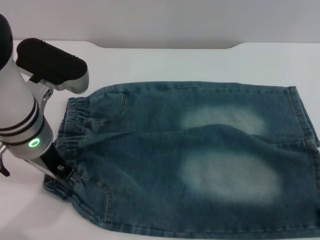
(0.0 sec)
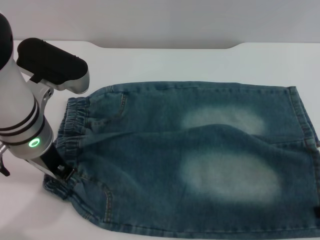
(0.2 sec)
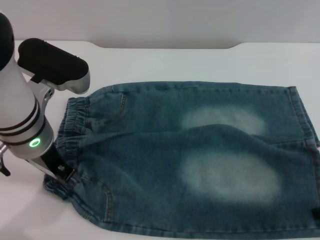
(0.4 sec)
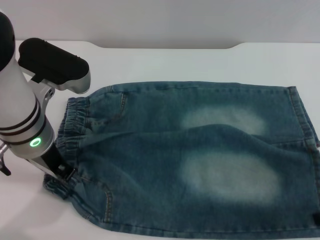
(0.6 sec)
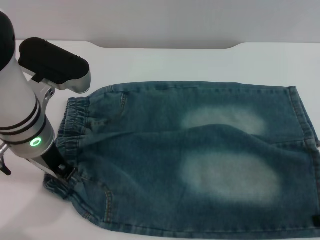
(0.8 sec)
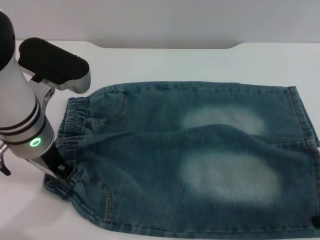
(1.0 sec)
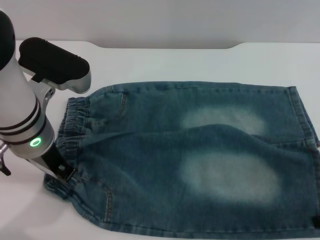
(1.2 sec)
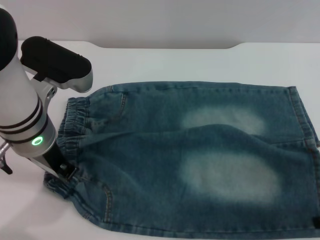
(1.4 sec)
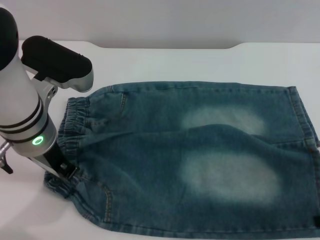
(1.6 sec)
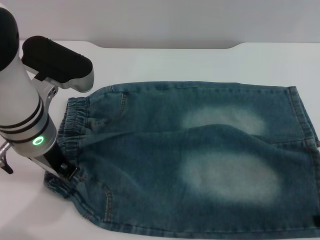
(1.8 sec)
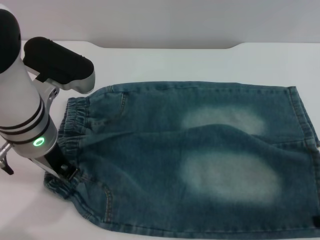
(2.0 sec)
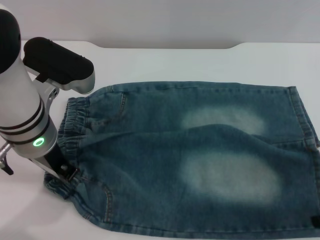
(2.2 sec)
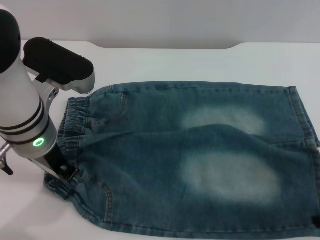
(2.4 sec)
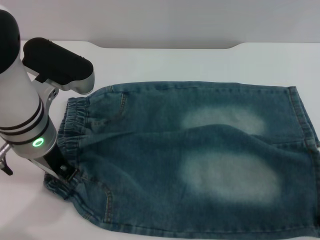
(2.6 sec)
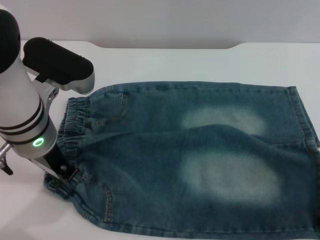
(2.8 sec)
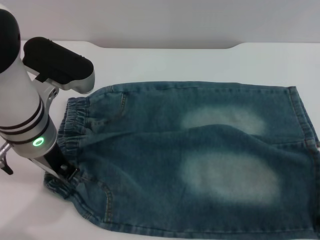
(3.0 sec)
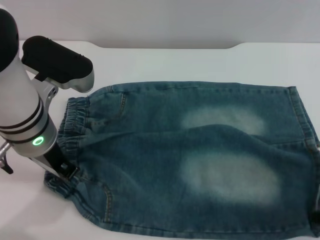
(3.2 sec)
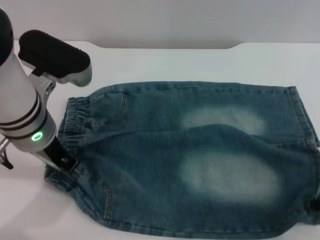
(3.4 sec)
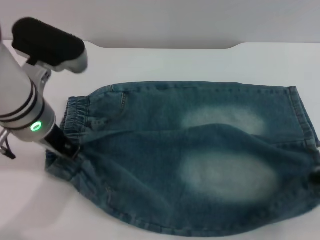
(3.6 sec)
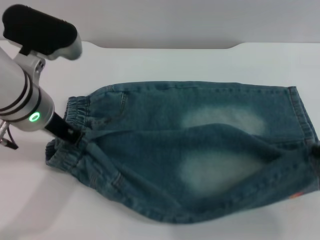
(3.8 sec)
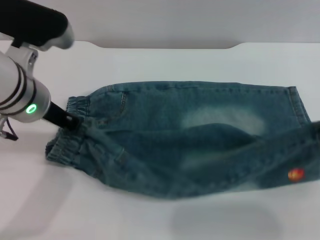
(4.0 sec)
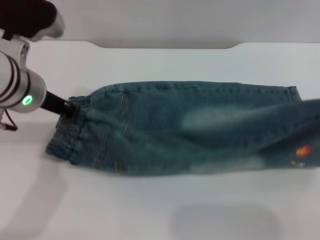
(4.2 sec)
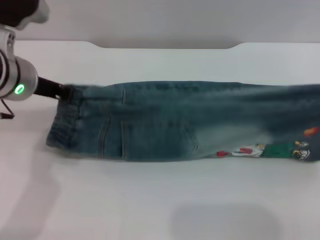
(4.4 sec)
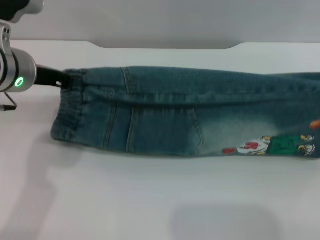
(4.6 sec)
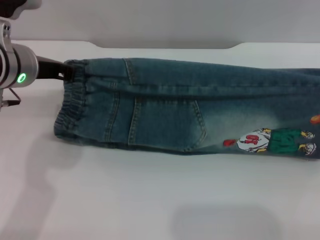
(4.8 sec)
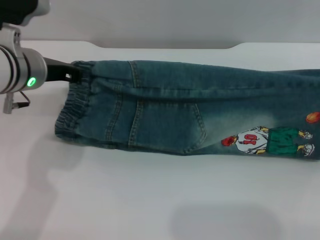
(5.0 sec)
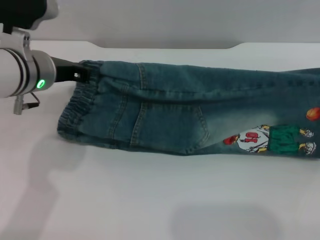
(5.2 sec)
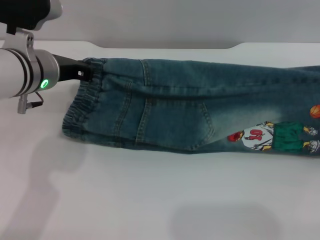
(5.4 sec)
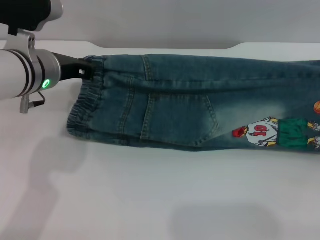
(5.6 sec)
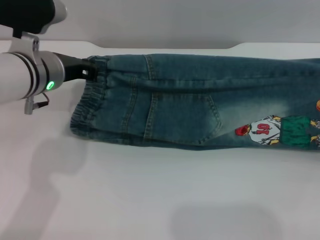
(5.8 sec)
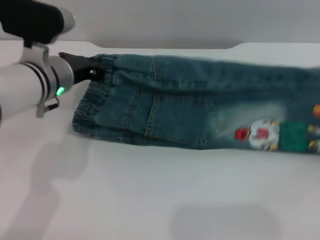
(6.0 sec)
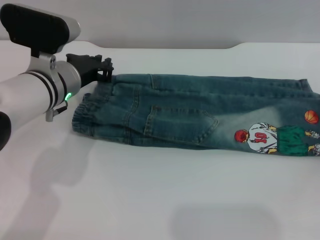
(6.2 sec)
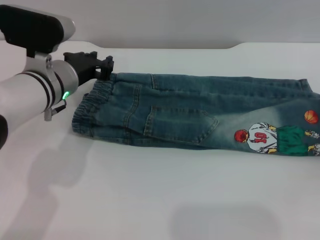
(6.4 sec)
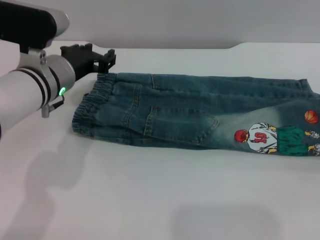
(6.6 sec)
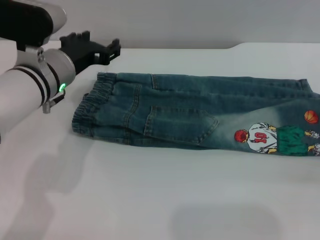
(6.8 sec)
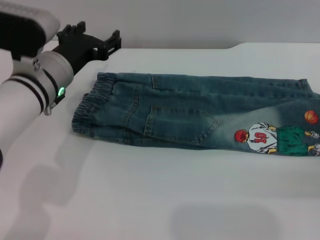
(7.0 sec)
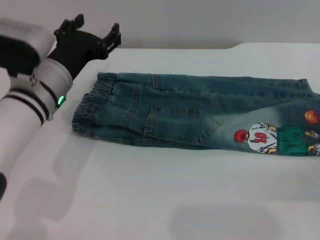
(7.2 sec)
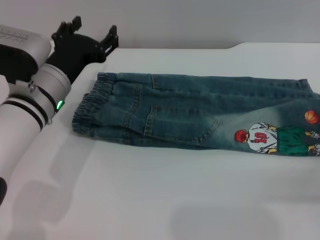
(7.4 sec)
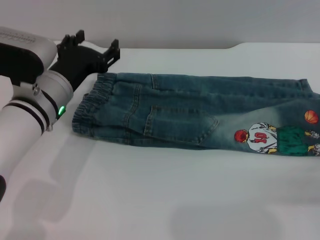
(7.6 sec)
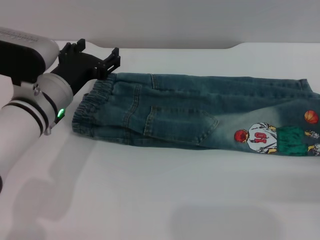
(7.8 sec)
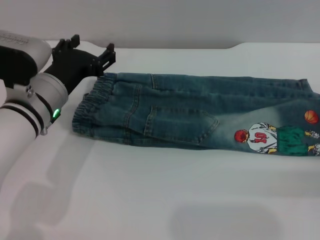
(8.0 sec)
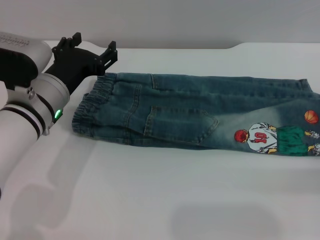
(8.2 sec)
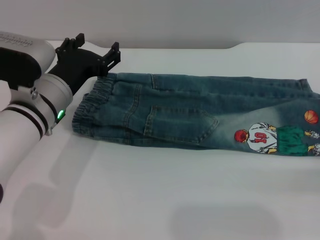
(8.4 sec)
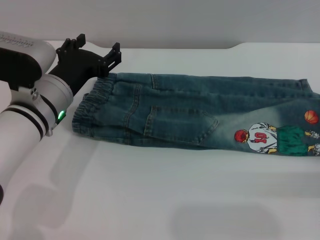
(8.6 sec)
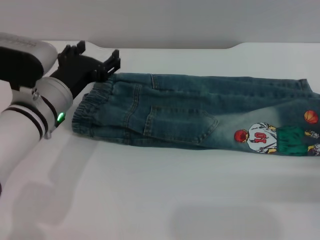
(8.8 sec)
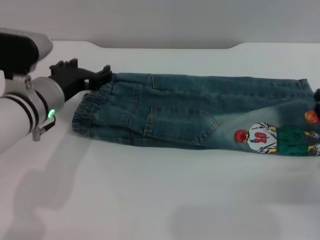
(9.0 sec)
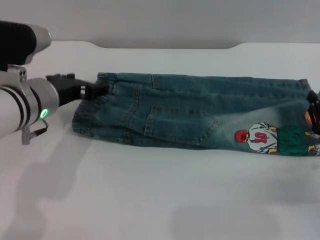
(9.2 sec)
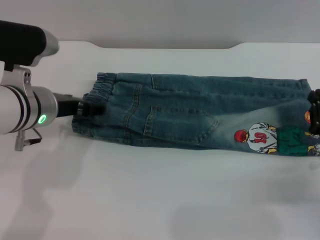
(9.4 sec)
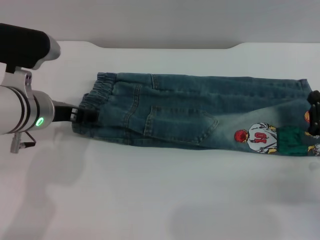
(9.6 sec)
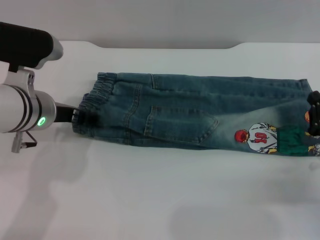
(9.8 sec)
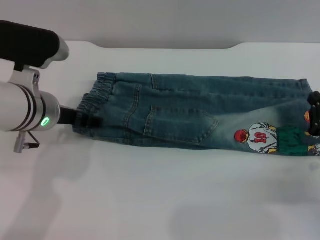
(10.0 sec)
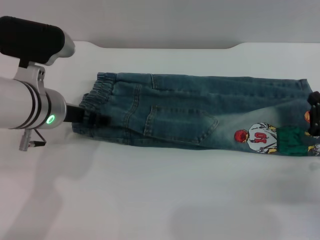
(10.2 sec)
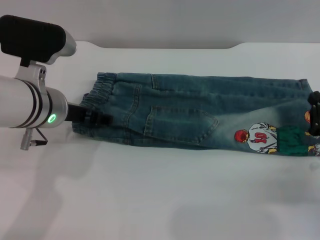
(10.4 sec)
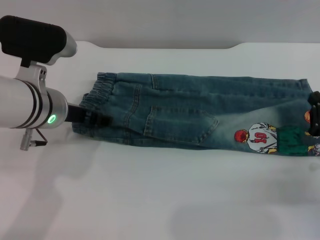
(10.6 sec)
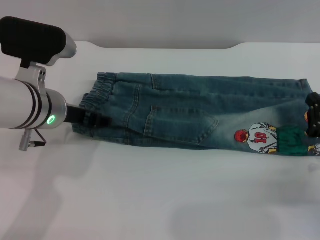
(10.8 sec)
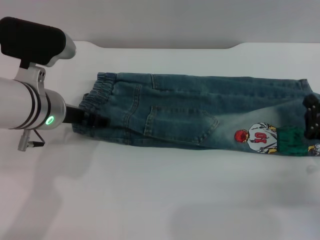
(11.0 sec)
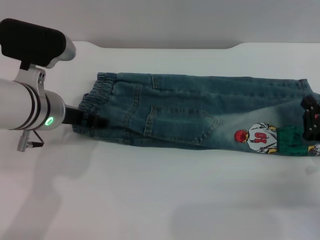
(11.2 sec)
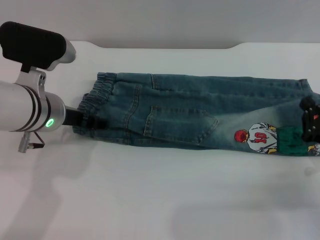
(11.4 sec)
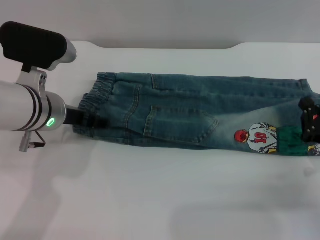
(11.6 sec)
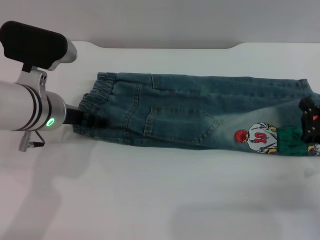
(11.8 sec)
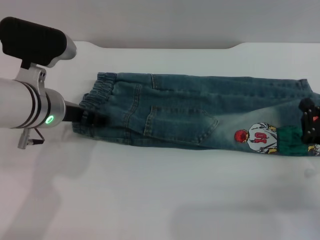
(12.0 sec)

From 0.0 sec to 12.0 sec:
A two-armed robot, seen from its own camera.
Step, from 0.0 sec to 6.6 sec: Fold the bottom of the pants upward with both grippers.
From 3.0 sec to 4.4 sec: The left gripper ends up some 5 cm from where it was. The right gripper moves upward, approximately 5 cm.
From 4.4 sec to 6.0 sec: Both grippers travel together downward, roughly 5 cm.
From 6.0 sec to 7.6 sec: The right gripper is displaced downward by roughly 5 cm, and opens up. The left gripper opens up.
From 7.6 sec to 9.0 sec: The right gripper shifts by approximately 5 cm.
From 10.4 sec to 12.0 sec: The grippers make only small movements.

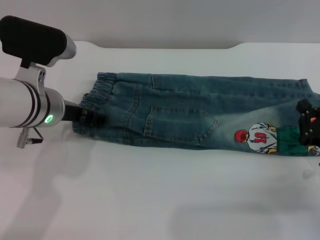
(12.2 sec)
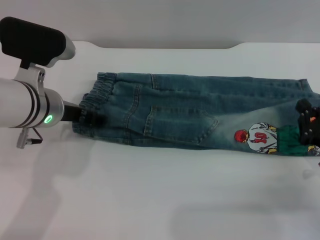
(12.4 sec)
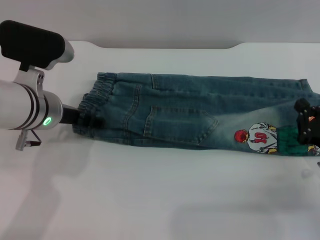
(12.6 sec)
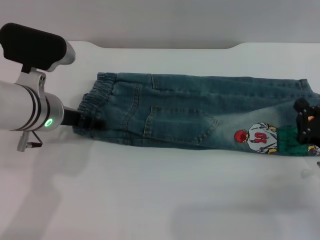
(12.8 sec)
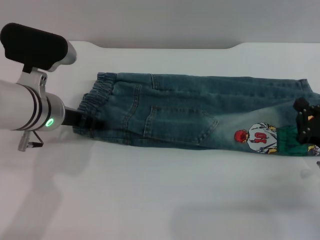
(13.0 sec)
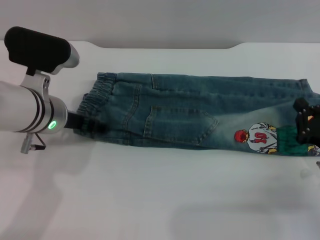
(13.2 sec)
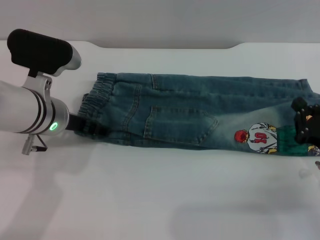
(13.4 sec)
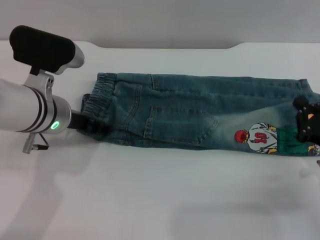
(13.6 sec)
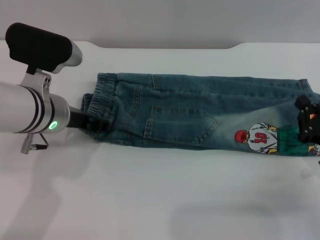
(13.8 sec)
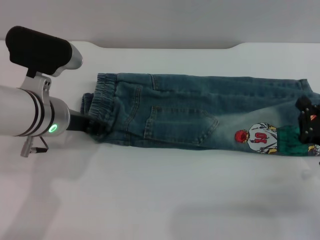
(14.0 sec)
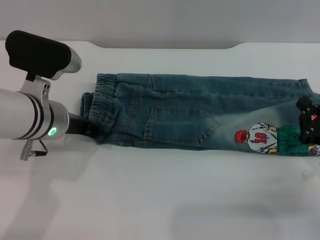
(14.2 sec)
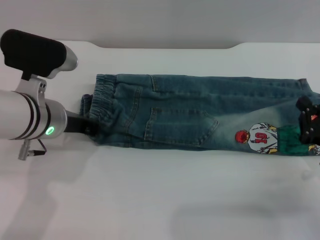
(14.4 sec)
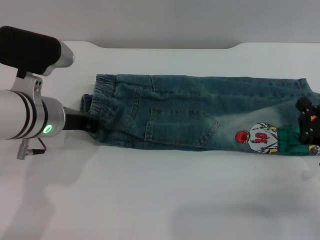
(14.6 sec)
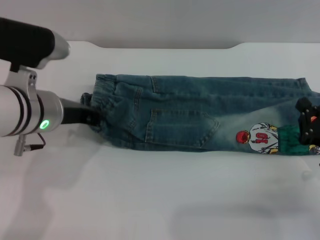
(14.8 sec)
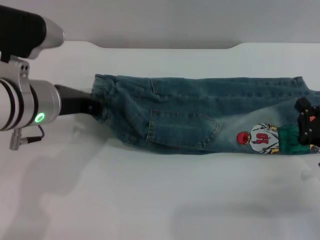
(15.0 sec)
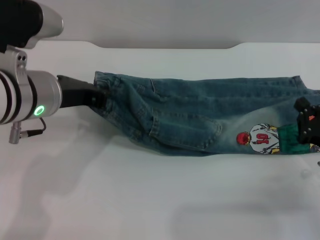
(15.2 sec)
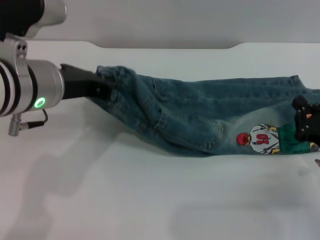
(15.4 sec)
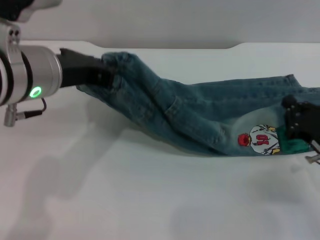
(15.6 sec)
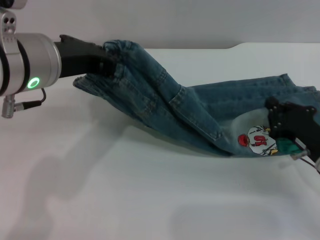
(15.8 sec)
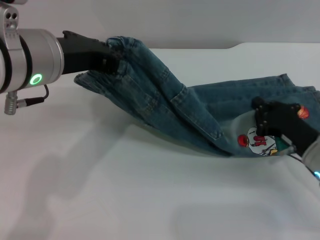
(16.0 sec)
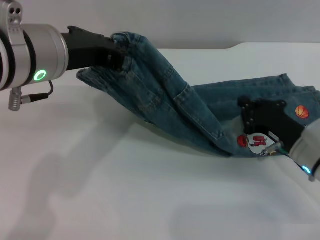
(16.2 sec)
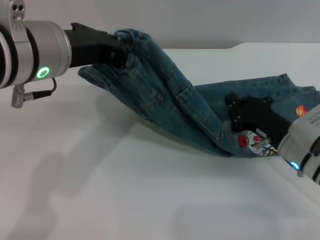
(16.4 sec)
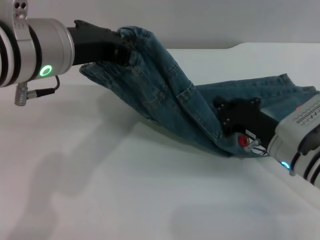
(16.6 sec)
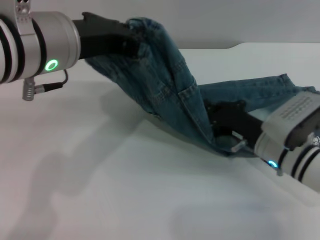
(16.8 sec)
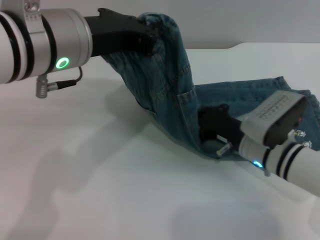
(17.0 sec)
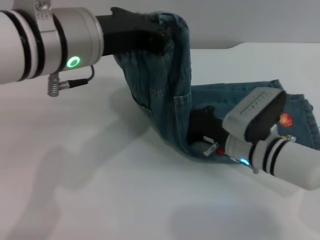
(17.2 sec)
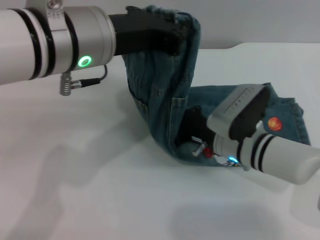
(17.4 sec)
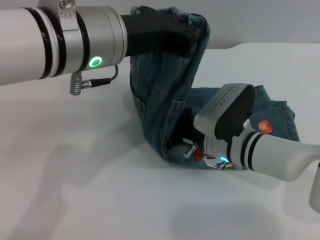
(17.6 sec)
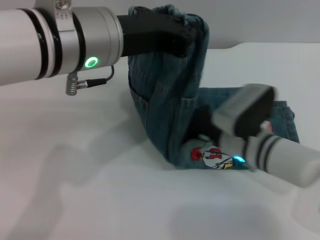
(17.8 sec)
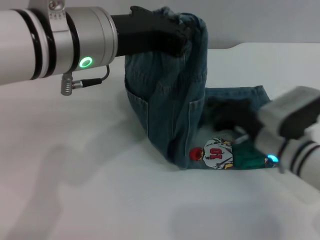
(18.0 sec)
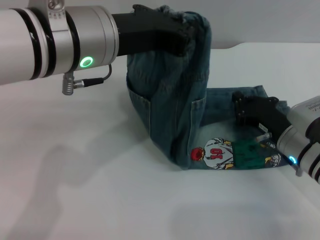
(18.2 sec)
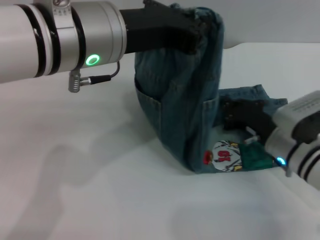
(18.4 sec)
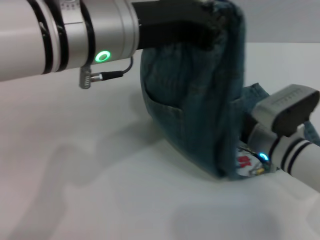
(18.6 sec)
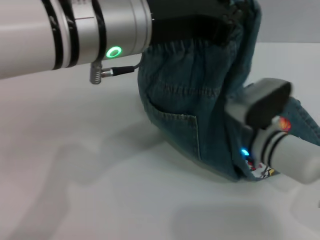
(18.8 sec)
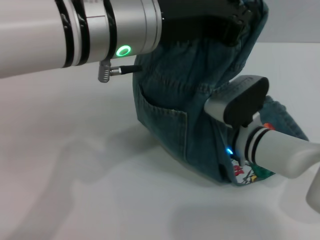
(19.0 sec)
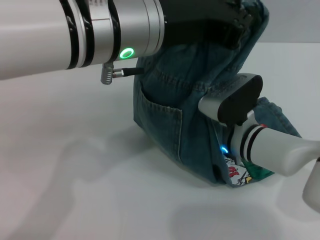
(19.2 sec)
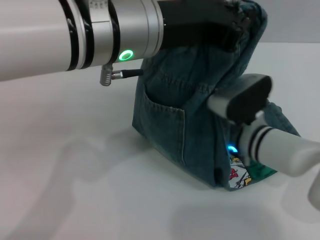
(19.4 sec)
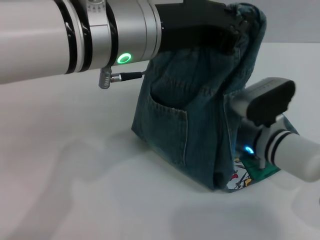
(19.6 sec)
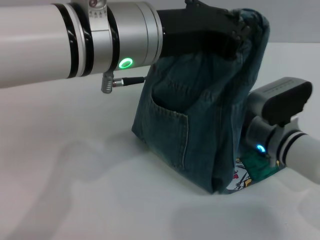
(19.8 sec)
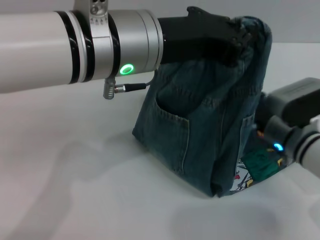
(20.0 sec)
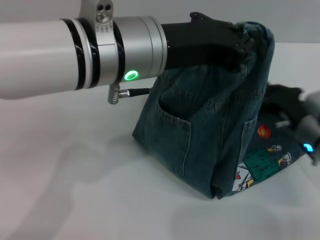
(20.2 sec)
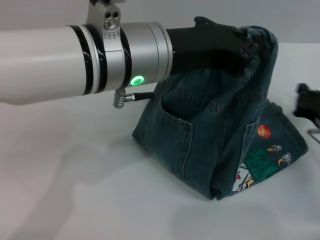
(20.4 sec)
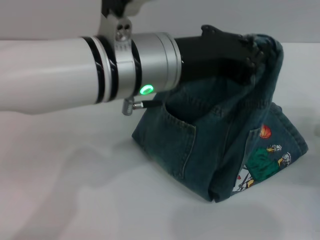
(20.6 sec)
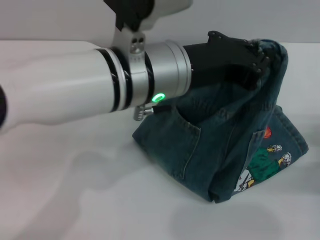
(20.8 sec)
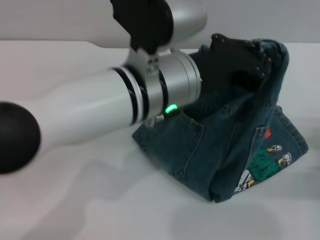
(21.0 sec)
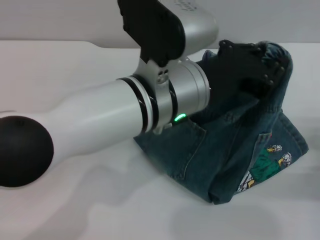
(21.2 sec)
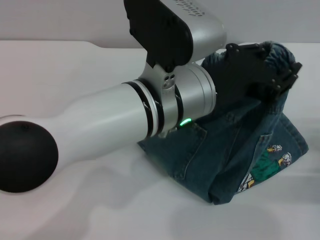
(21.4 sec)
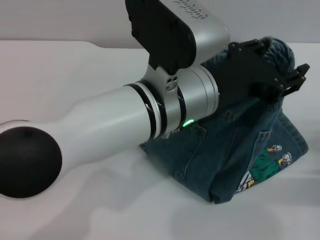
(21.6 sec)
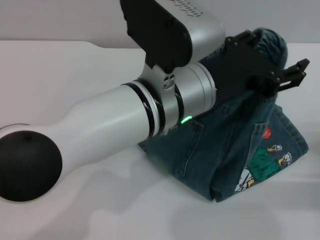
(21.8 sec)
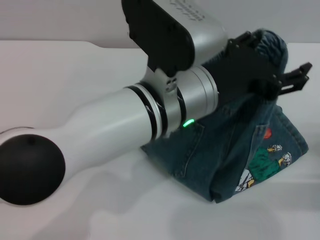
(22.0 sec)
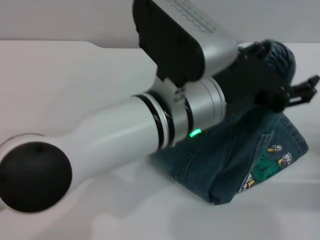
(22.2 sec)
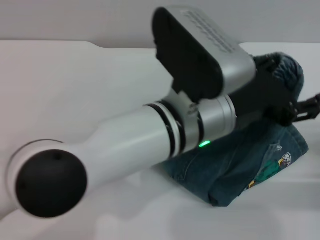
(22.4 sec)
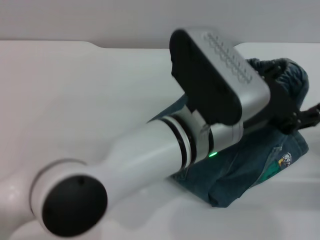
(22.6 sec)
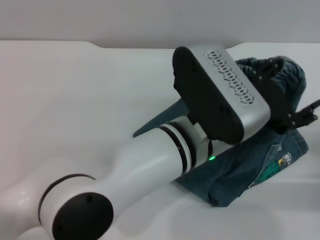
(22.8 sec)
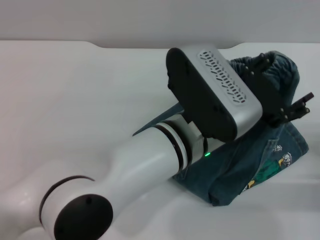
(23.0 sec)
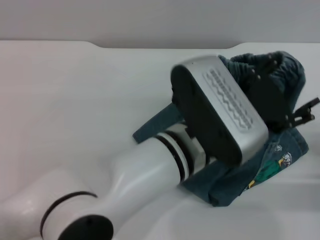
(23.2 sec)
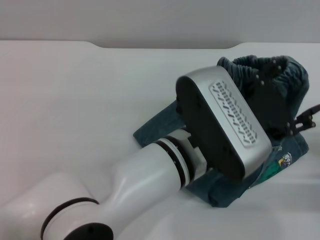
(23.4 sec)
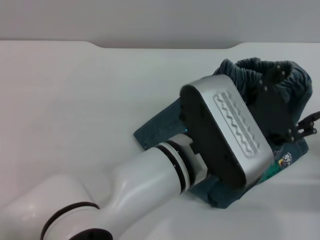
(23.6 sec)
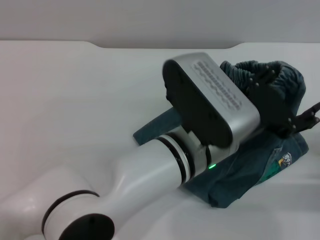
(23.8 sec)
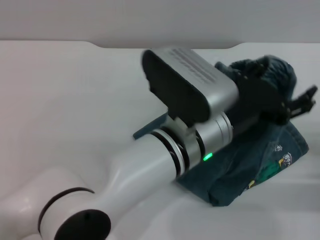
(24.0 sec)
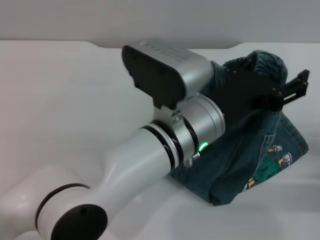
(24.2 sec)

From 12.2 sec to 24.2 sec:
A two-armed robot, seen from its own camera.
From 12.2 sec to 13.8 sec: The grippers stay close to where they were, moving slightly.
From 13.8 sec to 15.2 sec: The left gripper heads upward, covering approximately 5 cm, and closes up.
From 15.2 sec to 16.6 sec: The right gripper shifts about 10 cm to the left and forward. The left gripper moves upward, some 5 cm.
From 16.6 sec to 18.2 sec: The right gripper moves some 10 cm to the left and comes back.
From 19.8 sec to 21.2 sec: The left gripper moves downward, about 5 cm; the right gripper goes roughly 20 cm to the right and backward.
From 21.2 sec to 22.6 sec: The left gripper moves some 5 cm, and opens.
